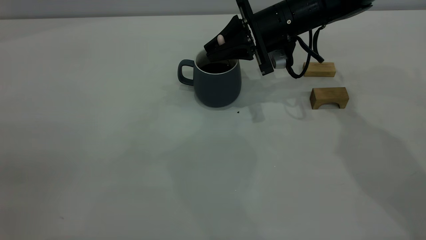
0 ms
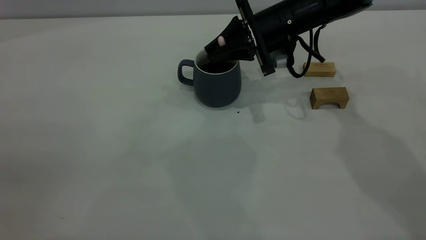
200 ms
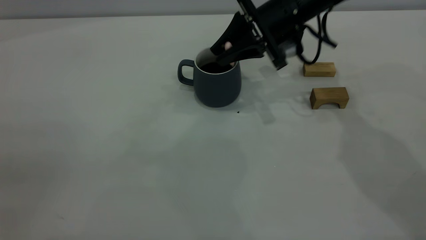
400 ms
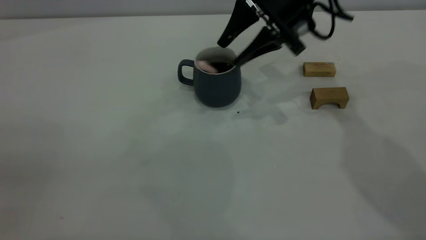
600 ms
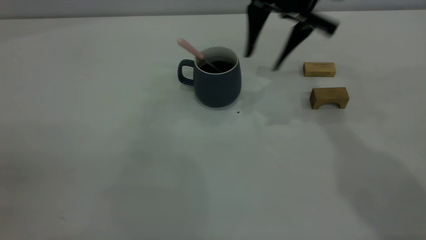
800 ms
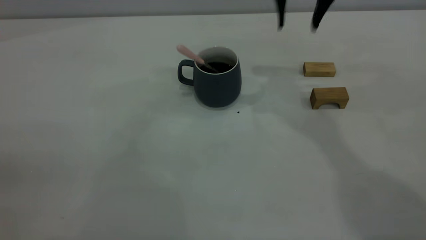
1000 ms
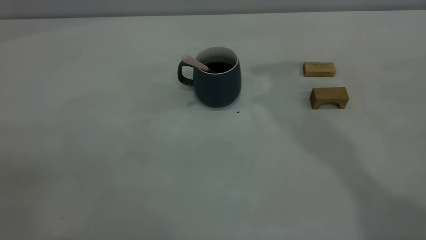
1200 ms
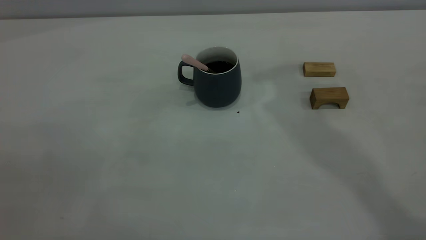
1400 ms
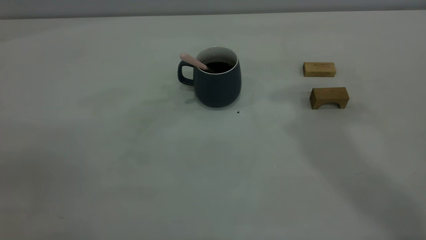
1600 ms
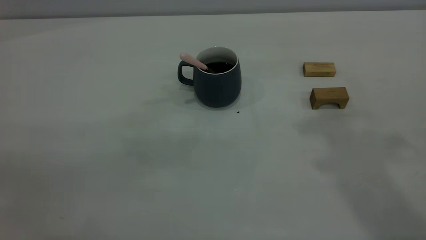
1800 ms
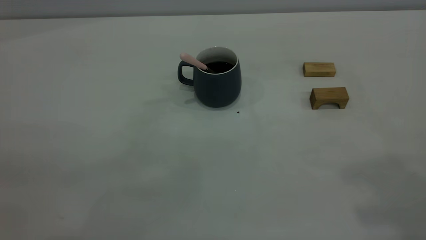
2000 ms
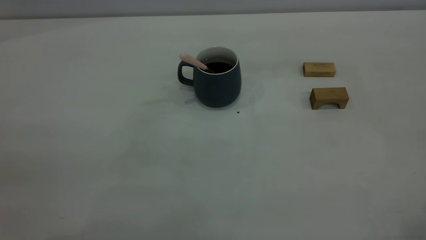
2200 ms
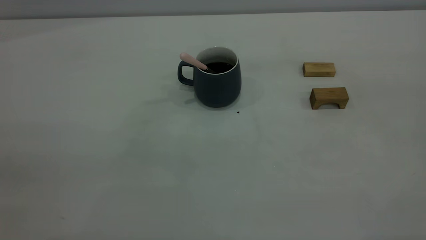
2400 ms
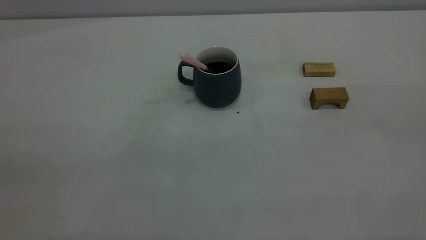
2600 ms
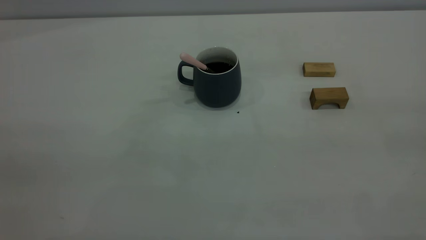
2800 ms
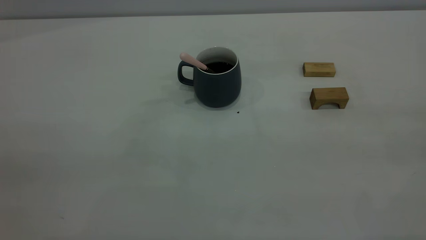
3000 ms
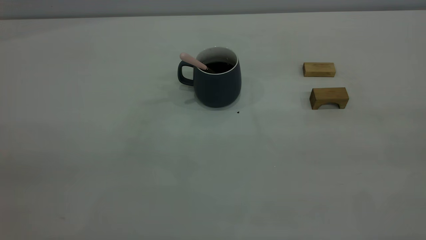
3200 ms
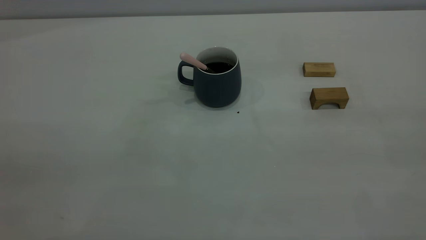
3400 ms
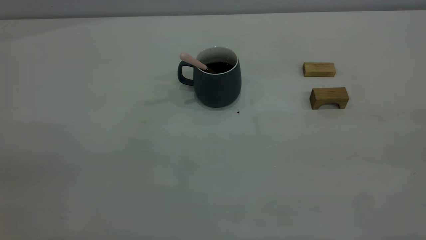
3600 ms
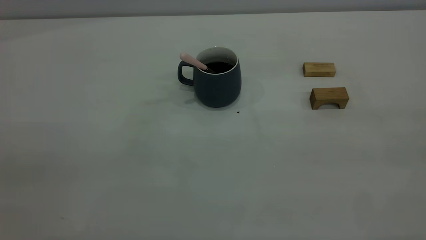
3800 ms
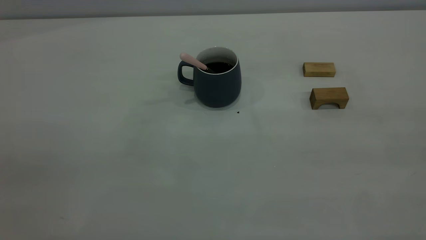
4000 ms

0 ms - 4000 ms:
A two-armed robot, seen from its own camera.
0 ms - 1400 ms: The right gripper moves upward, some 30 cm, and opens its fingers.

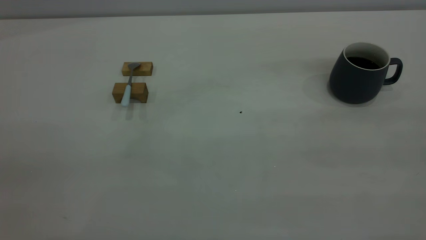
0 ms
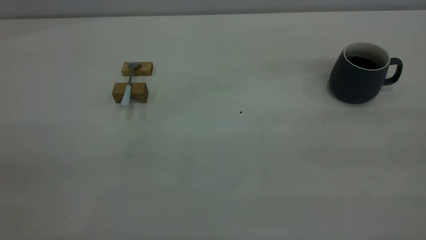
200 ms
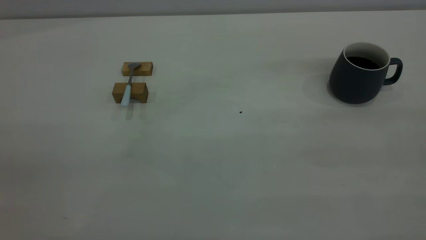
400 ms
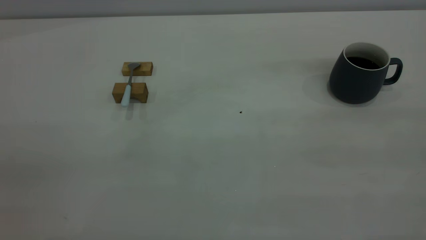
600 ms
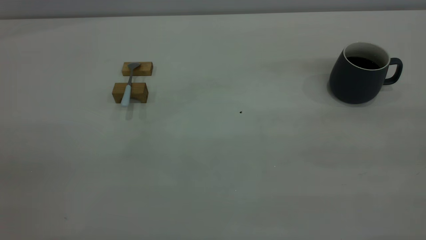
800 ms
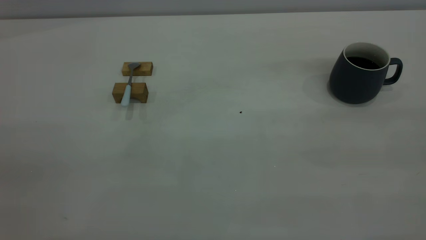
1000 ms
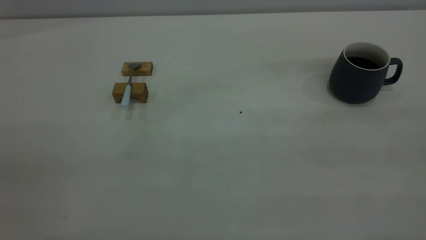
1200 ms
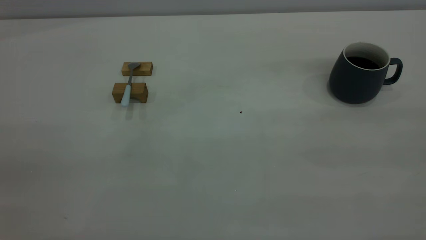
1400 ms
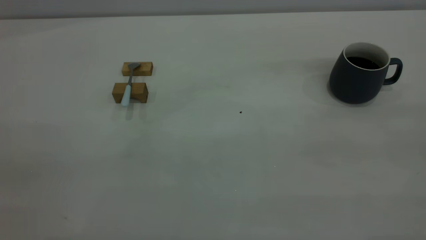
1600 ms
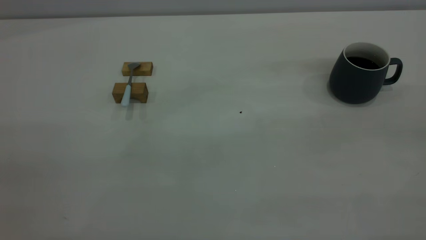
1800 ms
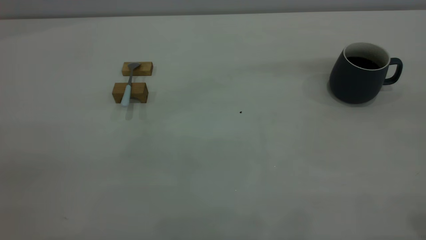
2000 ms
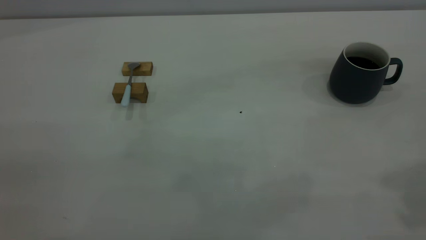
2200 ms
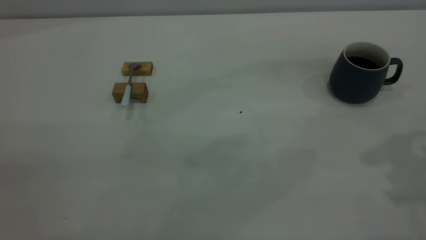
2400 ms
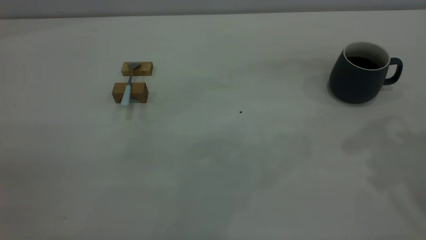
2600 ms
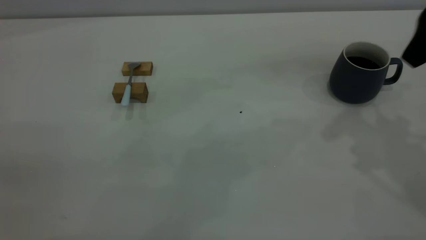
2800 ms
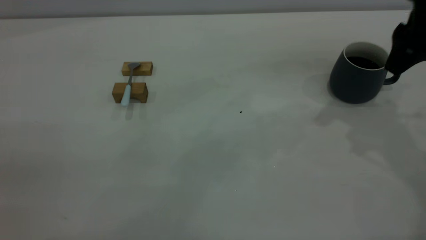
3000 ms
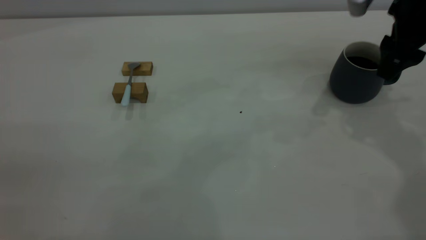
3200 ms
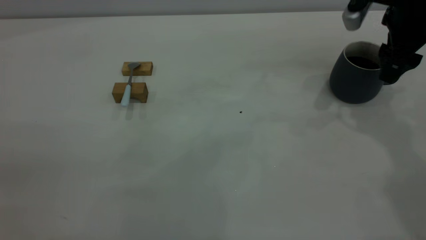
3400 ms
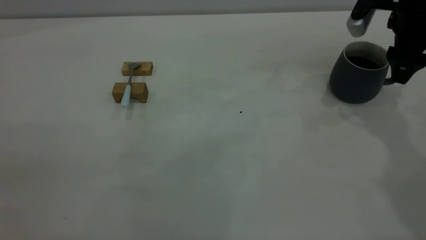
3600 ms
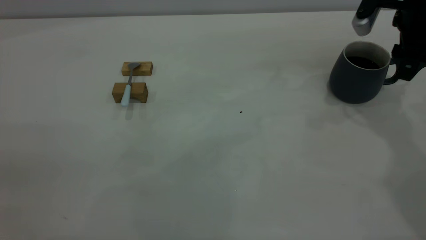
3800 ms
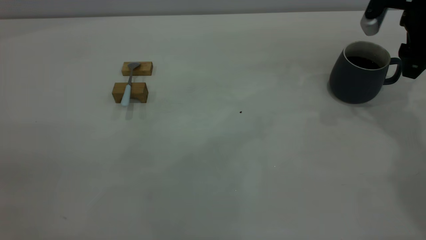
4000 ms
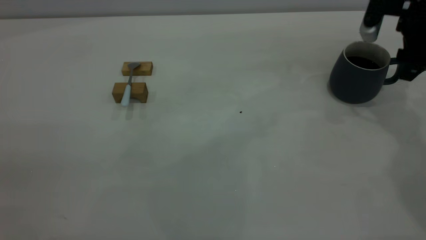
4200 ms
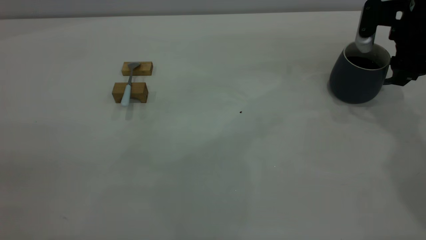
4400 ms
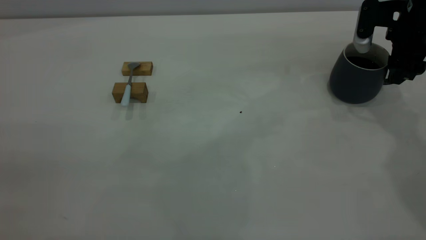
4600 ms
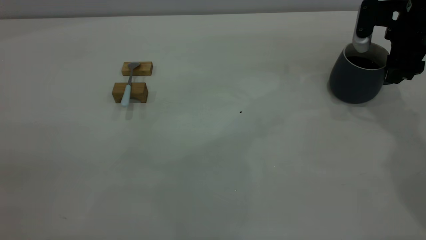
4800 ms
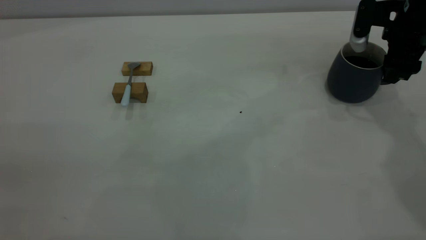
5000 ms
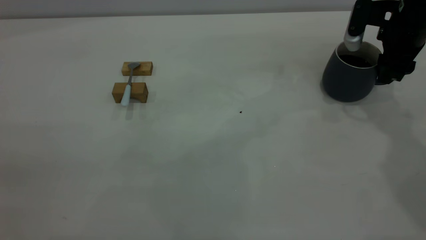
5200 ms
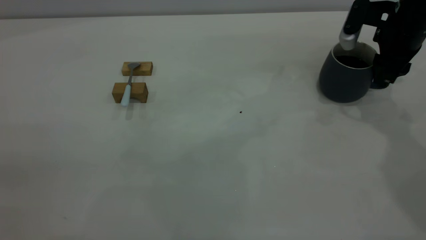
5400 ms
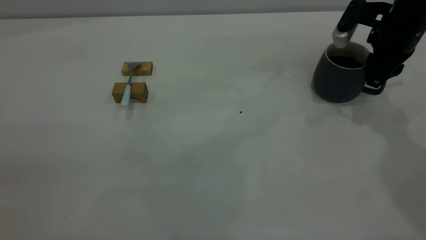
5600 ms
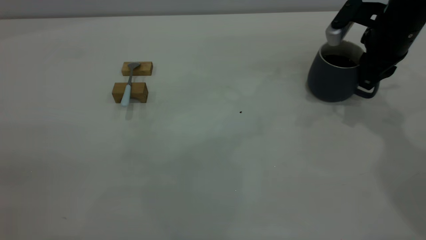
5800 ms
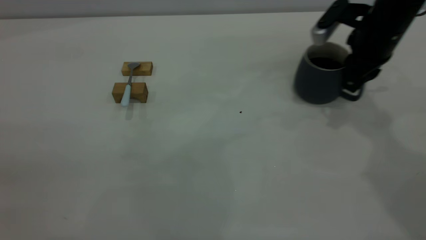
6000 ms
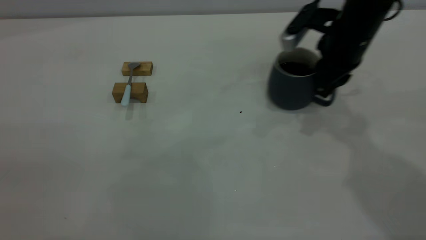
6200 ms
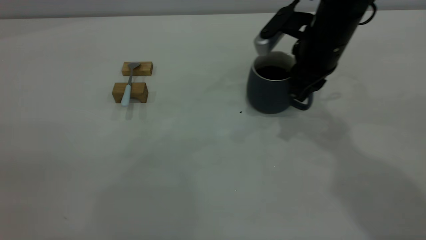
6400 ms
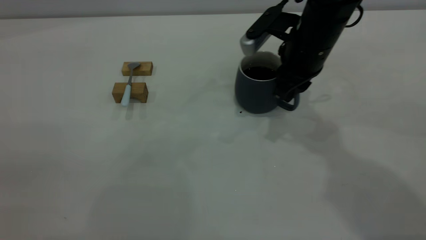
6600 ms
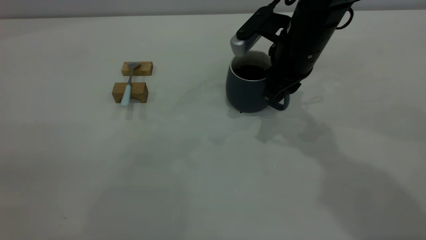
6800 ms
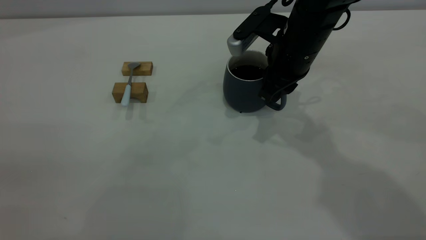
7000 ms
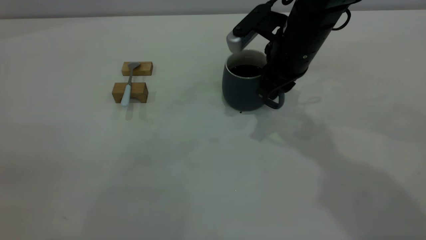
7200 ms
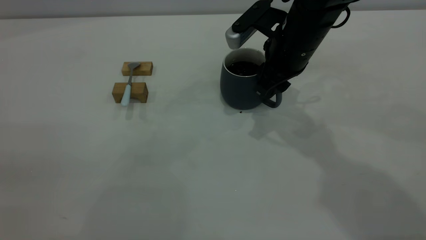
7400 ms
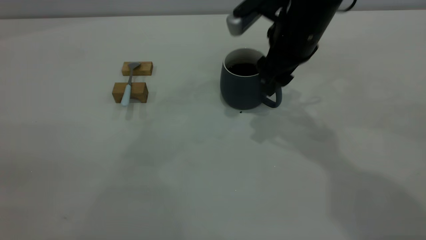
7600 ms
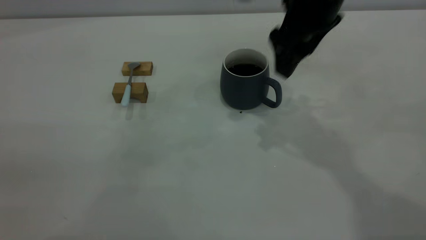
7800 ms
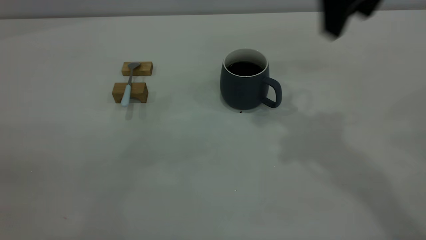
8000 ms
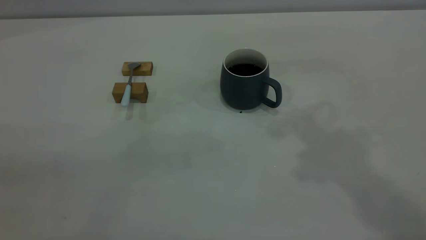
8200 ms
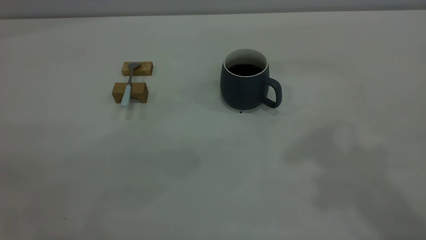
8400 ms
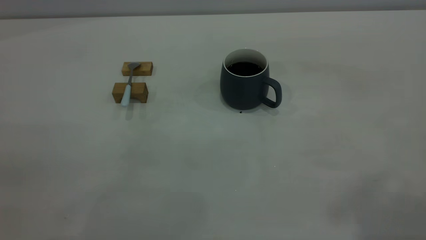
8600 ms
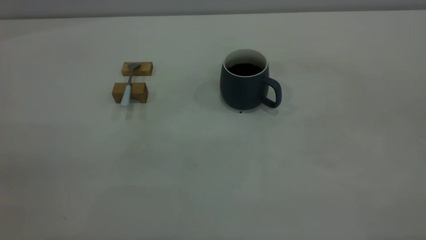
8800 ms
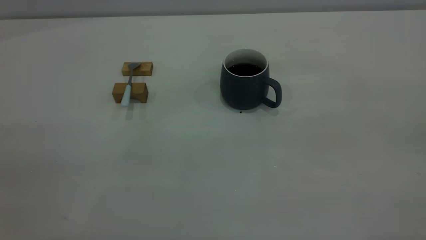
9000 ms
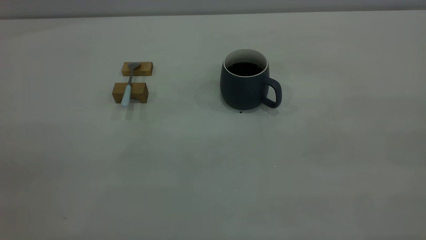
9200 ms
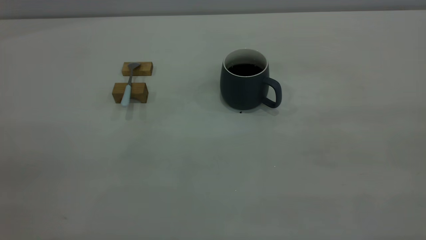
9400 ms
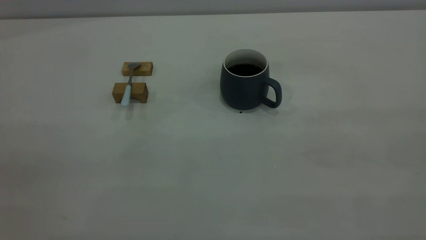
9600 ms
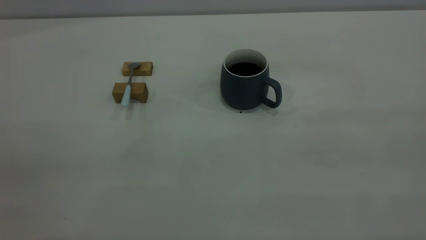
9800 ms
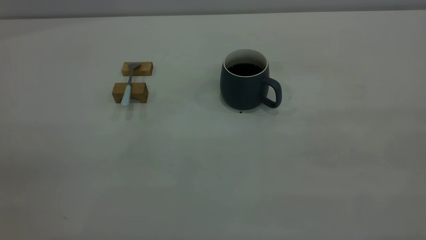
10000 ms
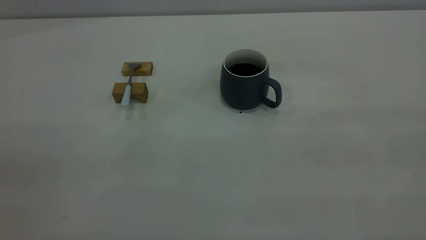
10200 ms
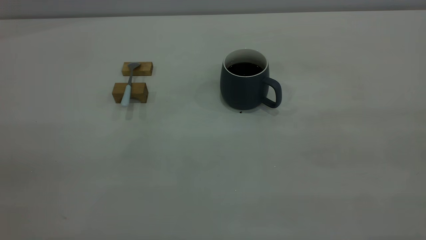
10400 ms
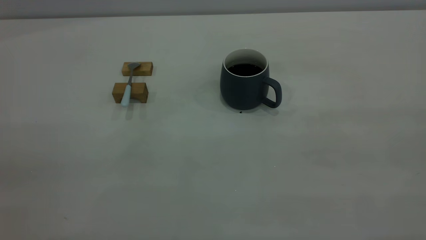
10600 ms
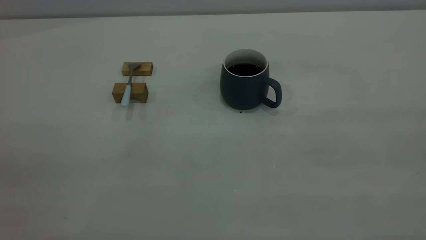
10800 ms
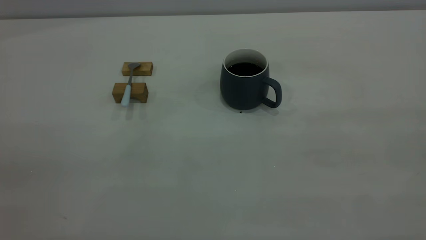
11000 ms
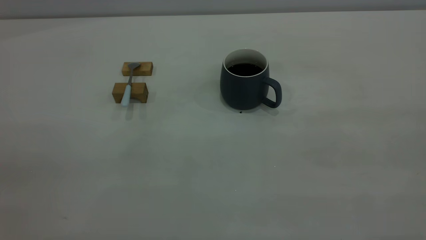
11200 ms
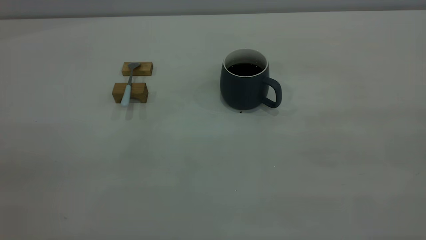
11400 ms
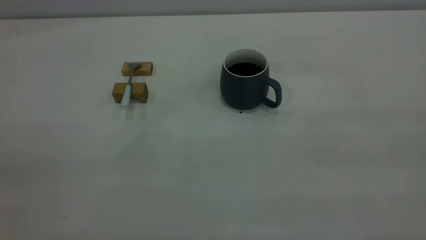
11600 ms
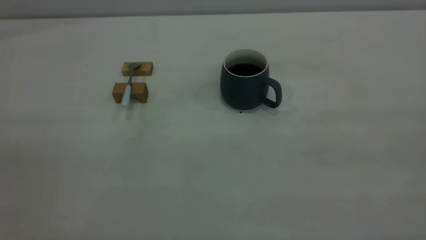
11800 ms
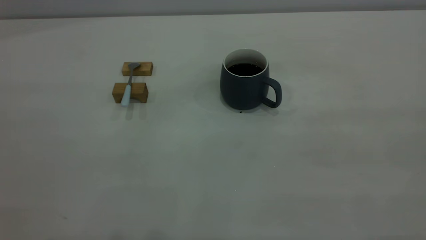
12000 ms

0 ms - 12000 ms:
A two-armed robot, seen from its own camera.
Step, 0 ms - 7800 ms: Move the cup with coffee to the center of view.
0 ms - 1600 ms: Both grippers stay about where they are.
1600 ms - 3000 ms: The right gripper goes approximately 35 cm forward and downward, and opens up.
3000 ms - 4400 ms: The right gripper shifts about 10 cm downward and forward.
4400 ms - 6000 ms: The right gripper shifts about 5 cm to the left, and closes its fingers.
6000 ms - 7600 ms: The right gripper moves to the left, some 10 cm, and opens its fingers.
7600 ms - 9000 ms: The right gripper travels backward, upward and to the right by some 50 cm.

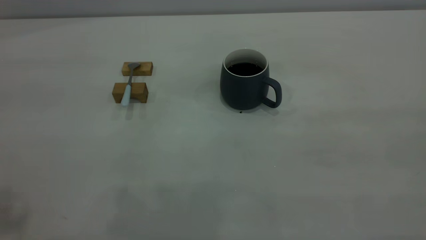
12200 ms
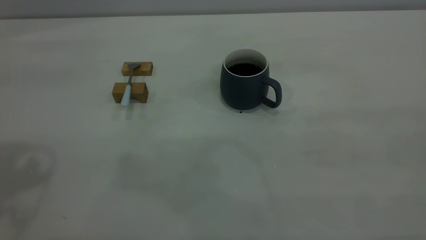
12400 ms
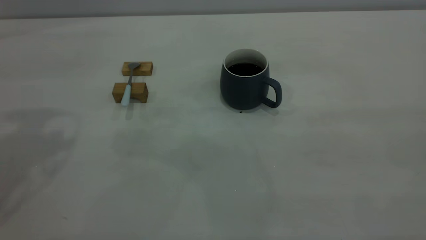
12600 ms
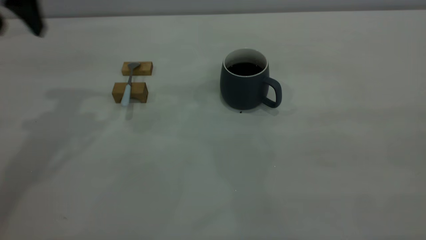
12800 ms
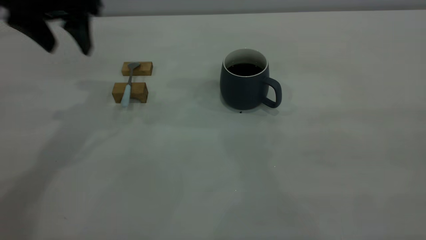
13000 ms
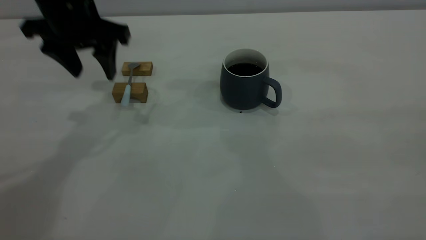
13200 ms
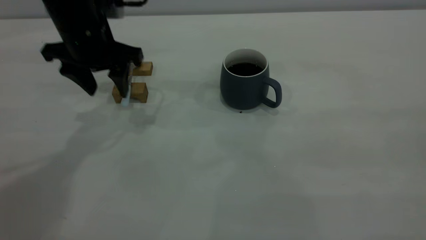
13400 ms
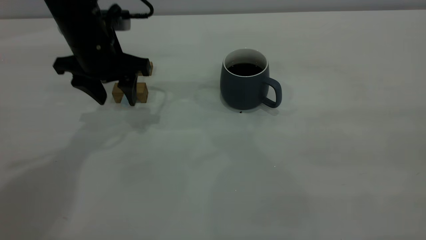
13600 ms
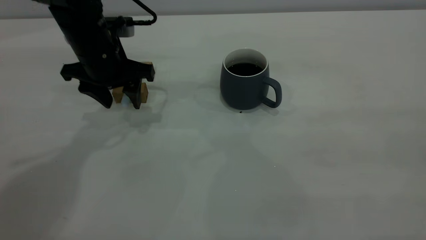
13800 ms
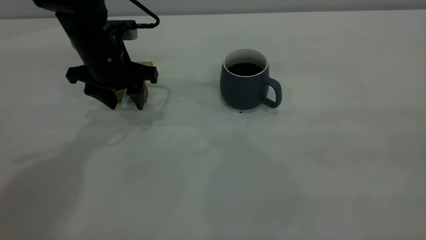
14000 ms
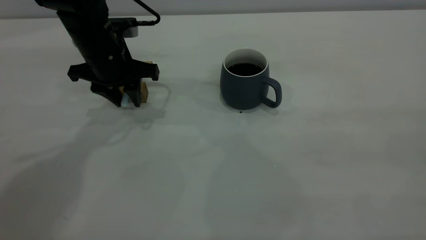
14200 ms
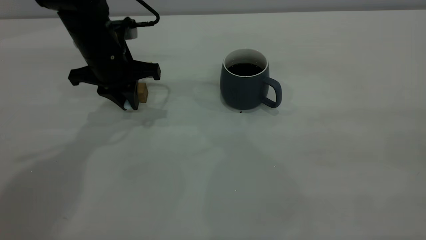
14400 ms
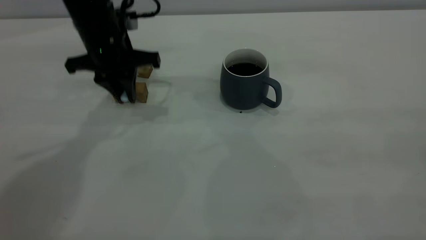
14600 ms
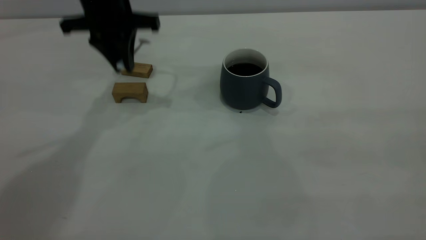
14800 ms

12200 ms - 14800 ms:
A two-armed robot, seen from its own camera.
Step, 12200 ms - 14600 ms: Pick up the spoon.
12200 ms - 13400 ms: The left gripper shifts about 35 cm downward, forward and to the right.
13400 ms - 14800 ms: The left gripper moves approximately 5 cm, and closes its fingers.
